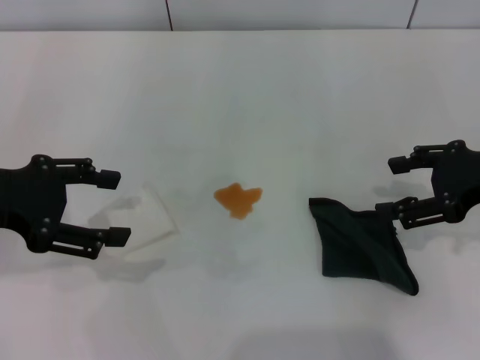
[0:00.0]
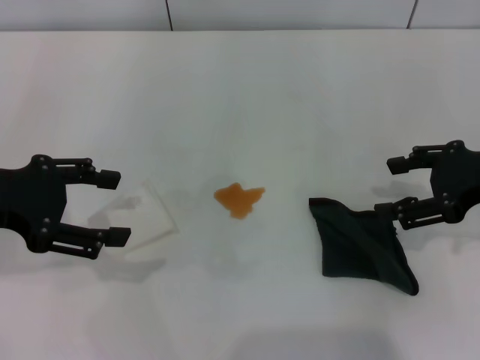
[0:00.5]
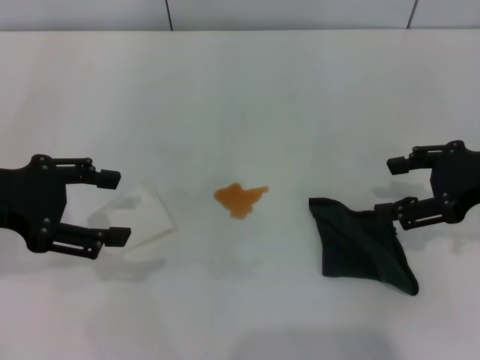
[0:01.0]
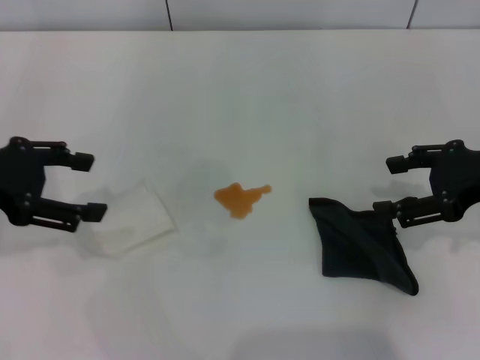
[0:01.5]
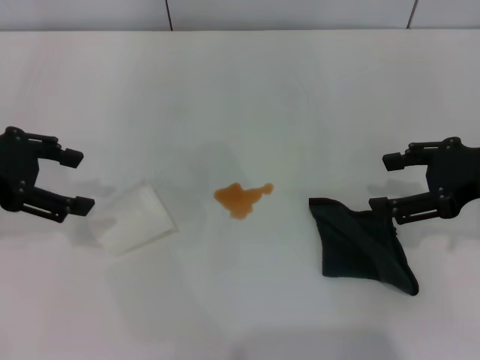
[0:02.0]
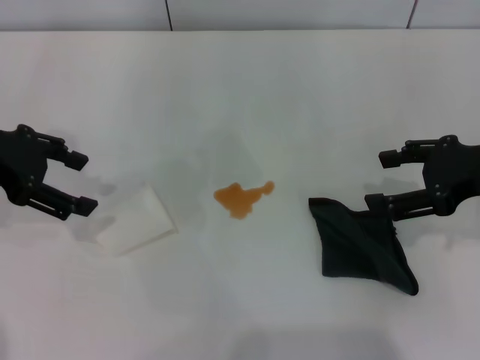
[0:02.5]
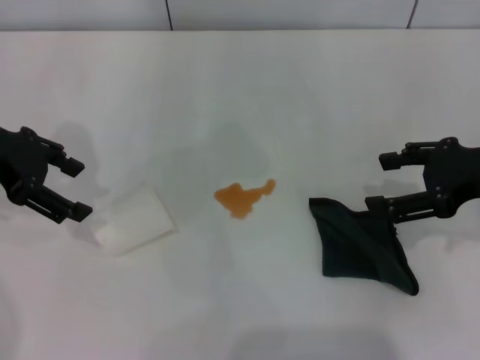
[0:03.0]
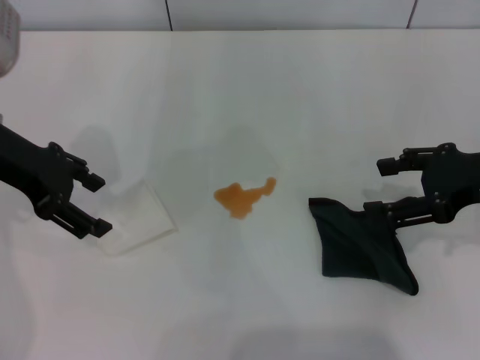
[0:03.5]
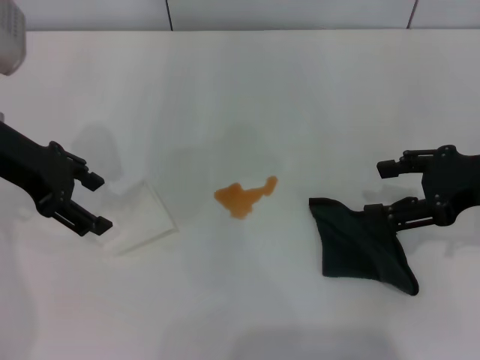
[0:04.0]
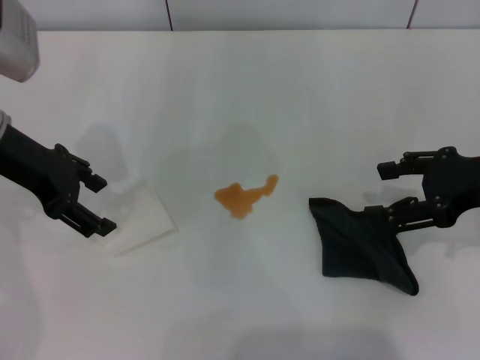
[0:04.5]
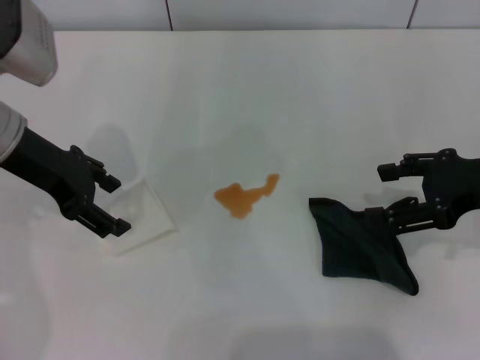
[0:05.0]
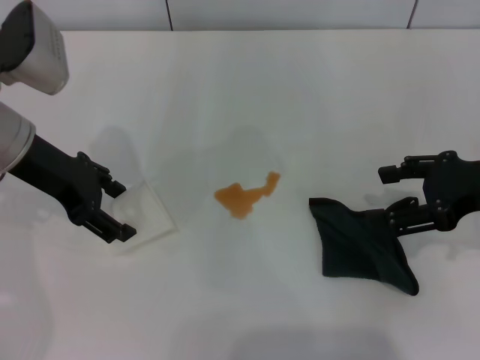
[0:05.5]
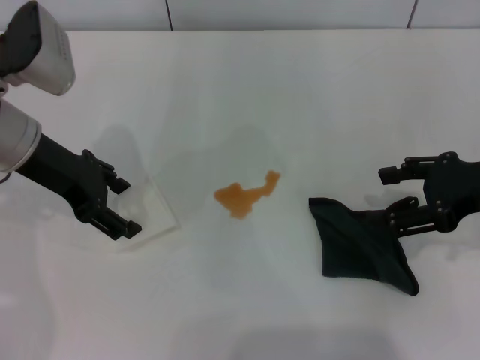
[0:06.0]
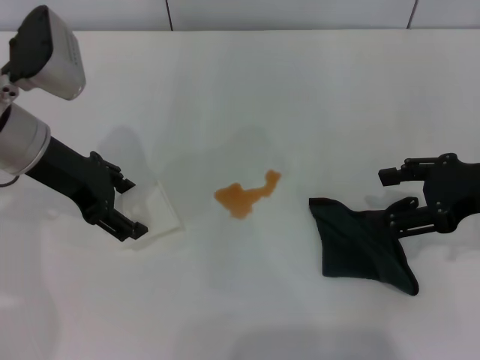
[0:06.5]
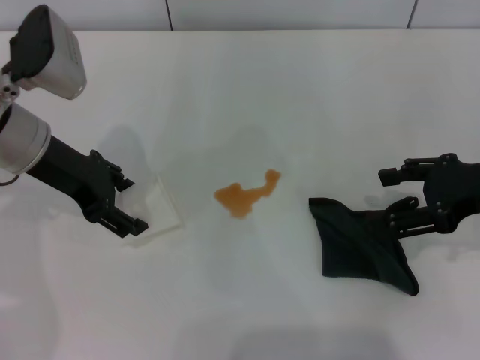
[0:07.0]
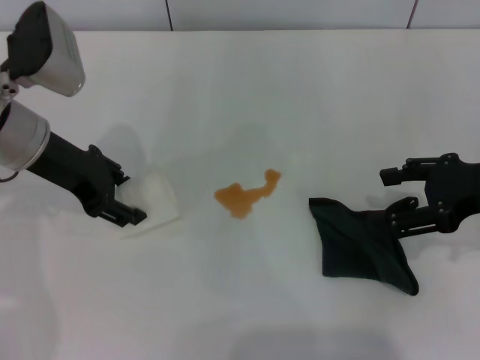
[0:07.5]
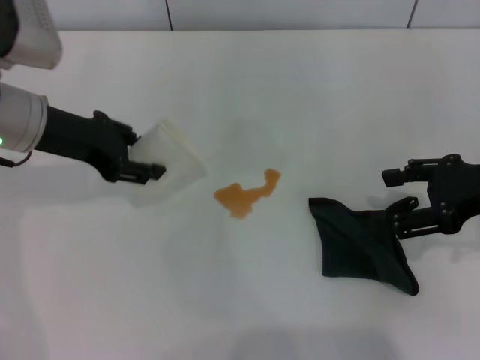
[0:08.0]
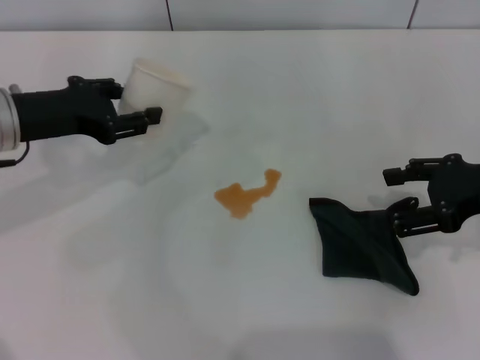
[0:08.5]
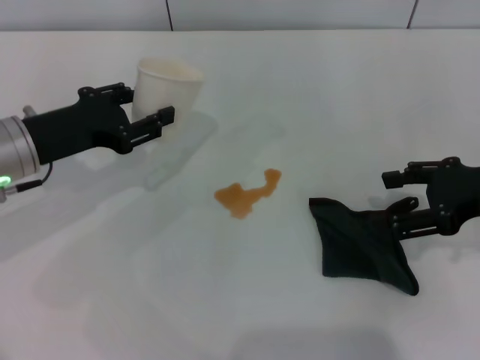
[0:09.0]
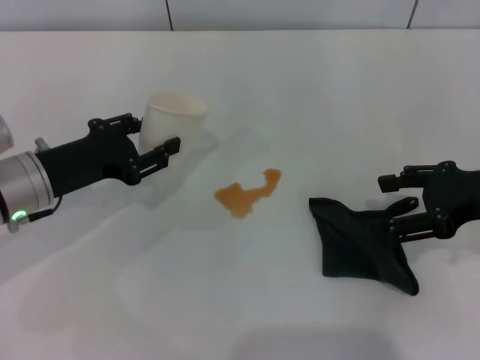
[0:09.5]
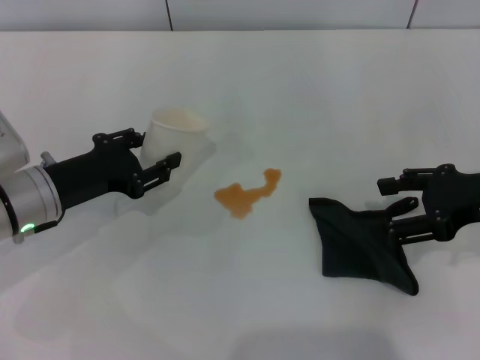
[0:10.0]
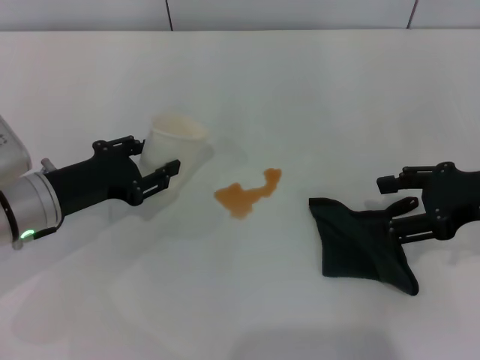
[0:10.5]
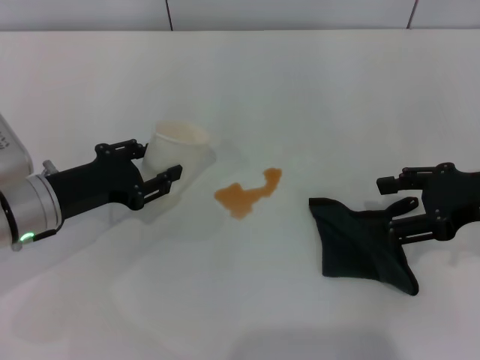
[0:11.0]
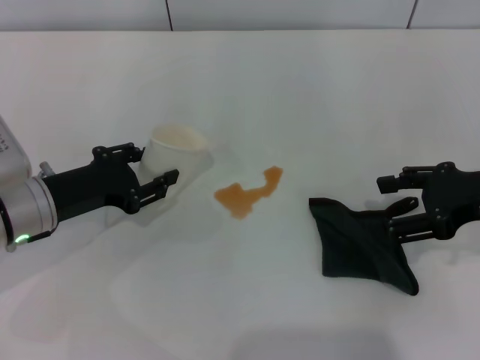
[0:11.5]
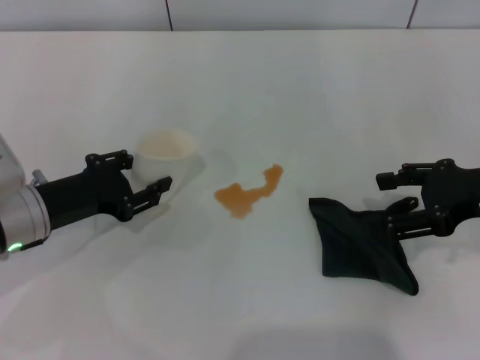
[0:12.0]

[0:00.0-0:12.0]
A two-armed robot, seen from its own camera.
Step, 0:00.0 to 0:07.0: Grasp the paper cup with the left gripper.
0:00.0 to 0:02.0: The left gripper moves some 5 cm.
0:02.0 to 0:04.0: The left gripper is displaced to the right by about 5 cm.
0:04.0 to 0:06.0: The grippers make only small movements.
0:06.0 to 0:08.0: The left gripper closes.
0:08.0 to 0:10.0: The left gripper heads downward and backward, covering some 10 cm.
0:10.0 to 0:12.0: The grippers move only a little.

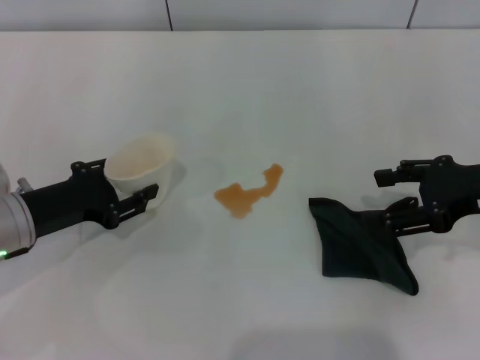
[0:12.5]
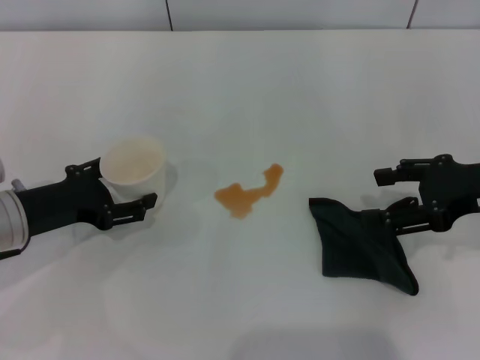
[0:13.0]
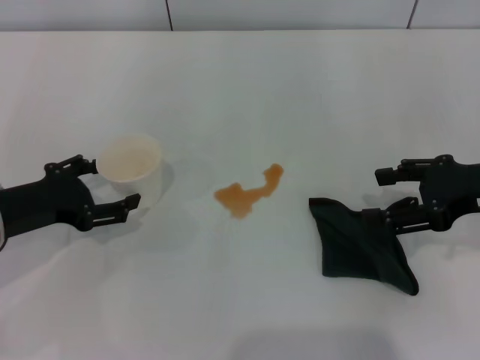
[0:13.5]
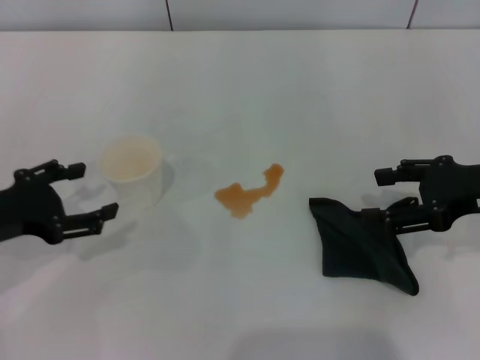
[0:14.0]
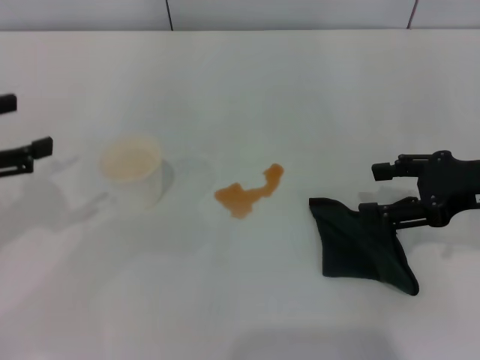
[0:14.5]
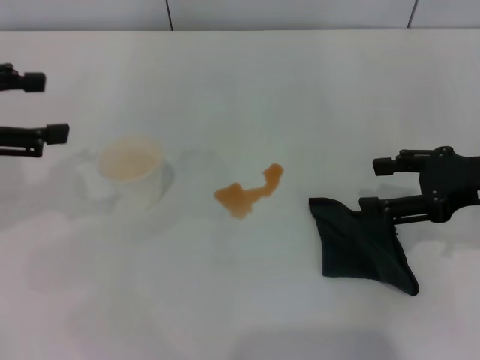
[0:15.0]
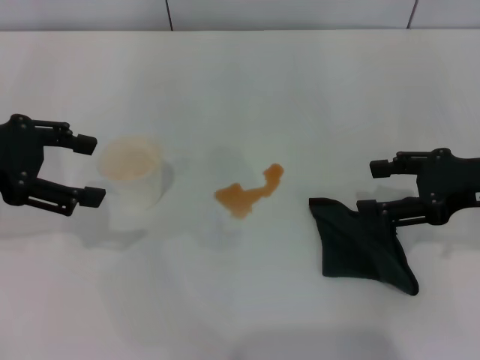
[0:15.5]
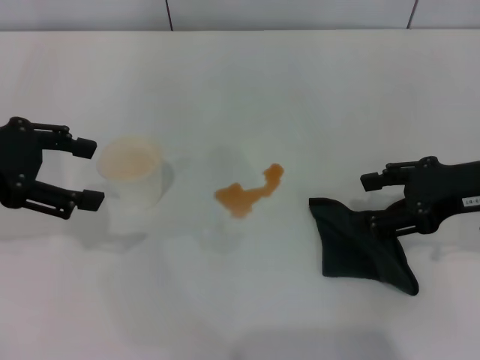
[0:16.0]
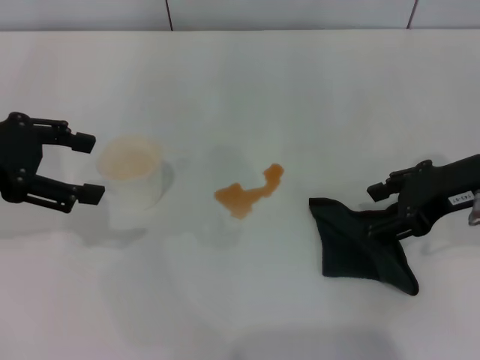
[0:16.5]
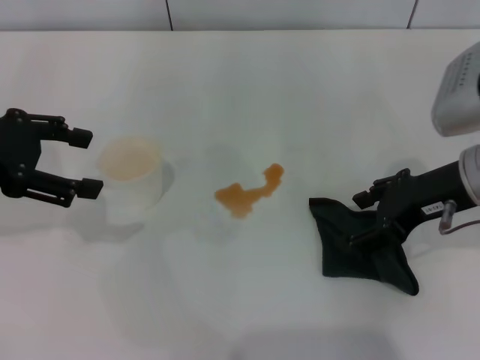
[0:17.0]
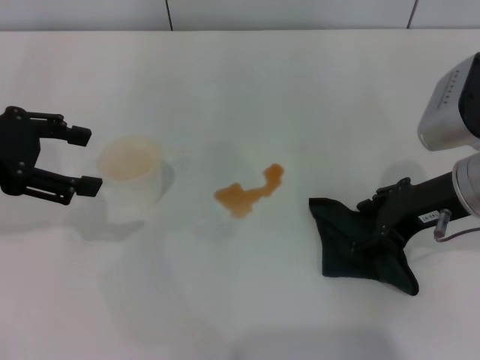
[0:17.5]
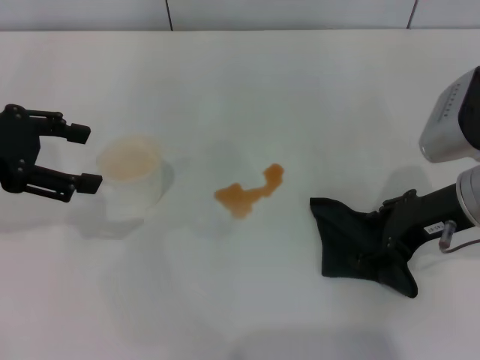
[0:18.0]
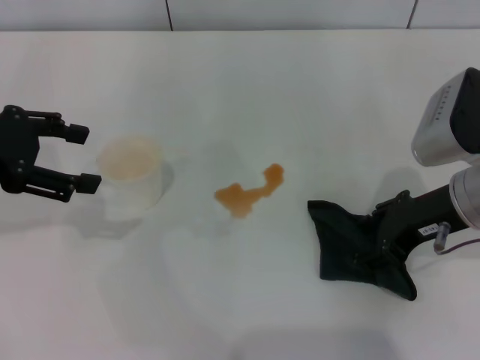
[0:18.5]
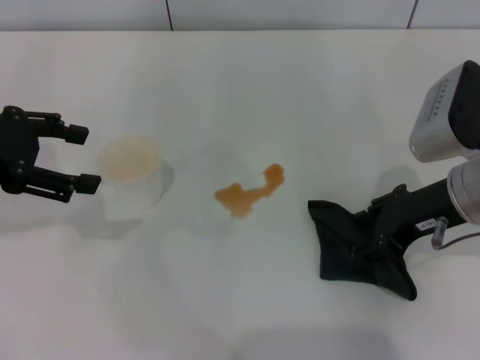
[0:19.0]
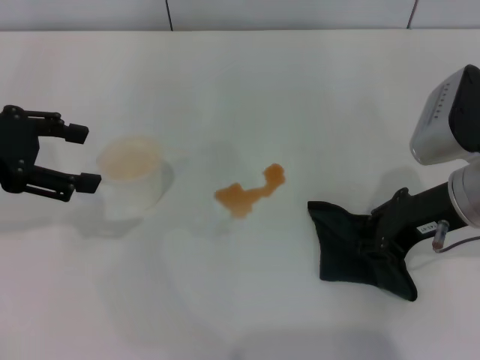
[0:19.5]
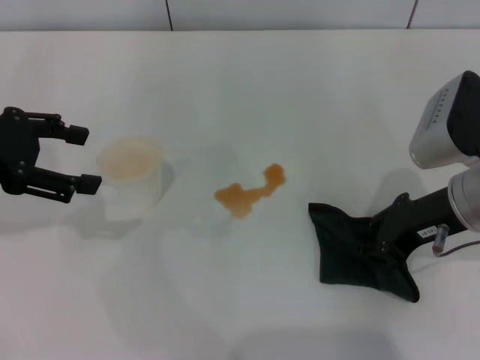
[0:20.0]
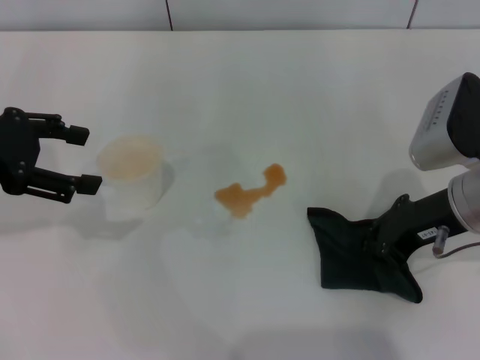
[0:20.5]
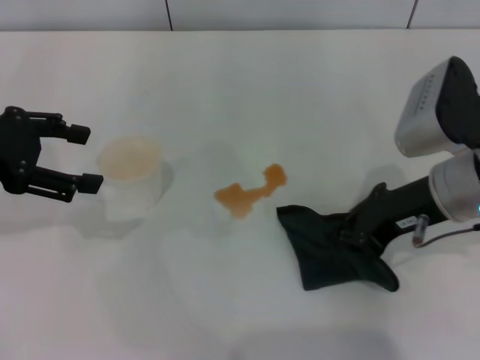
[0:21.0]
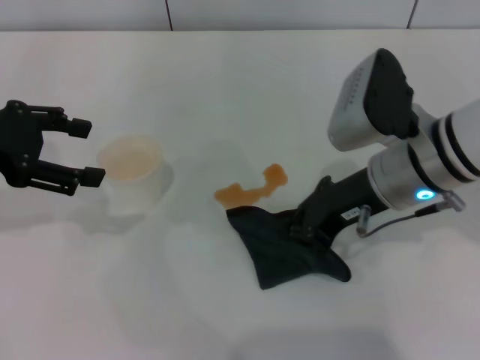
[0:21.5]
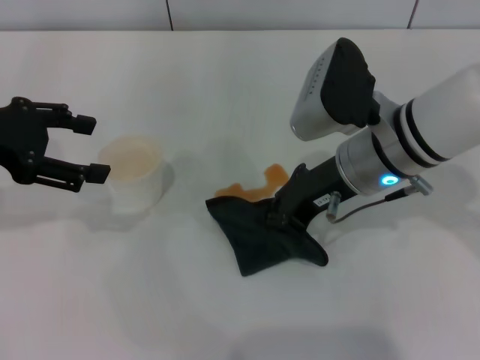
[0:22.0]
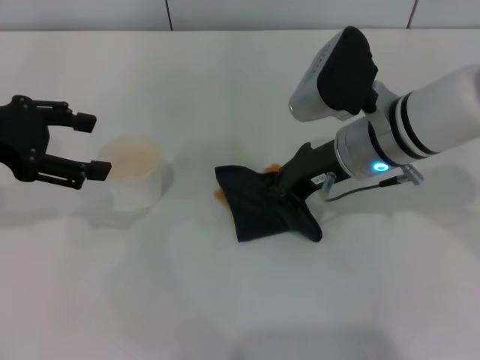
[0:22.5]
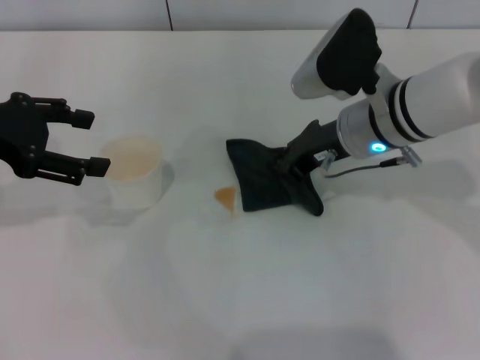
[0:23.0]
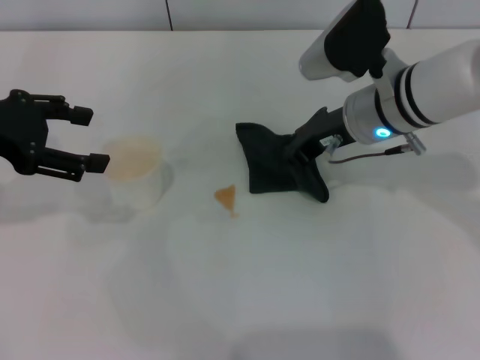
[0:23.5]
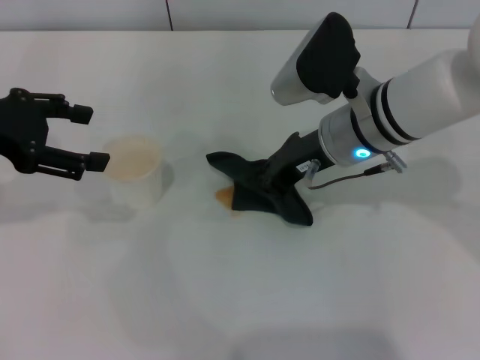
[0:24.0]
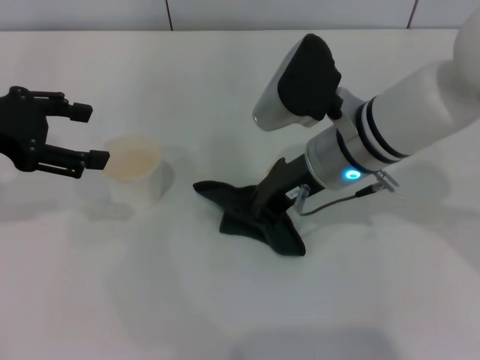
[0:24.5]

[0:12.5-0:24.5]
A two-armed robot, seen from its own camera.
Step, 0:14.5 to 0:20.5: Grasp the rag with the right gripper.
0:12.5 to 0:14.5: The left gripper is displaced upward and to the left by about 15 cm, and opens.
0:14.5 to 0:16.5: The right gripper moves some 5 cm; the left gripper is displaced forward by some 5 cm.
0:16.5 to 0:18.5: The grippers move only a little.
0:18.5 to 0:20.5: The right gripper closes.
0:20.5 to 0:22.5: The right gripper heads to the left and forward, covering about 10 cm.
0:22.5 to 0:24.5: The grippers make only small movements.

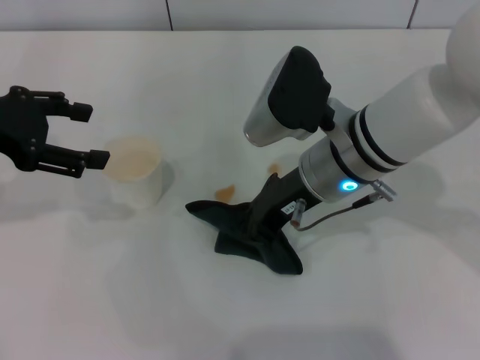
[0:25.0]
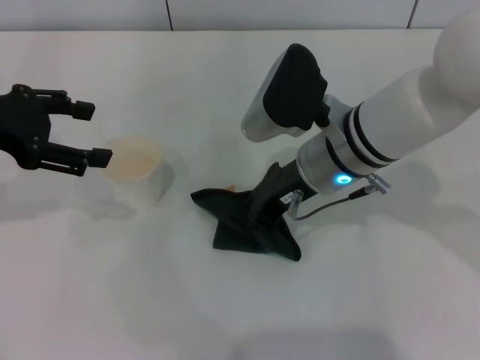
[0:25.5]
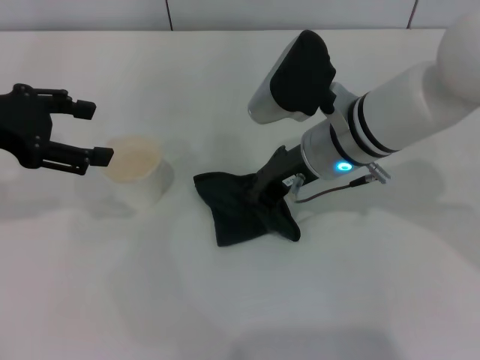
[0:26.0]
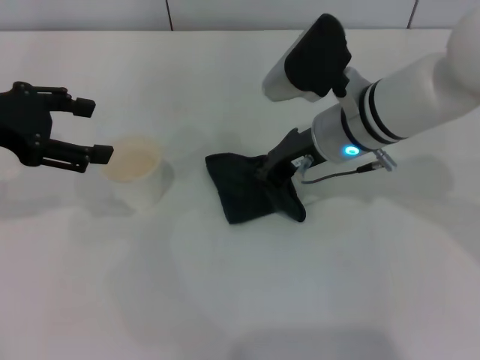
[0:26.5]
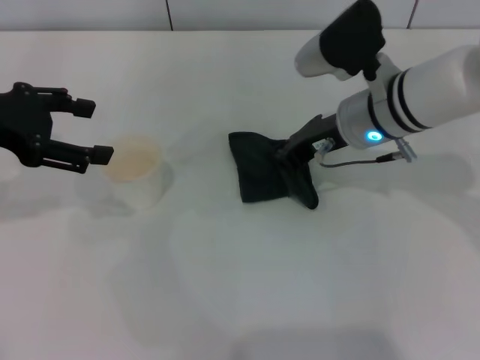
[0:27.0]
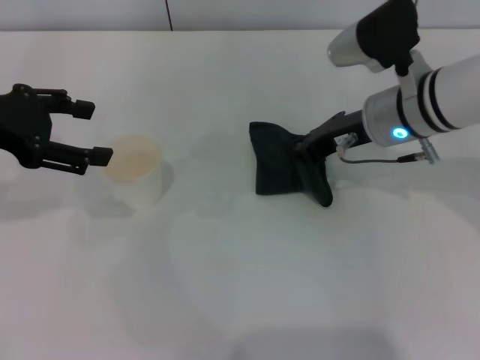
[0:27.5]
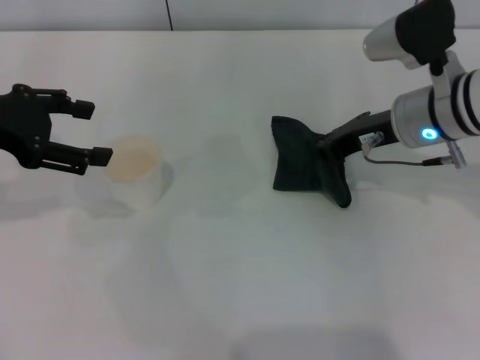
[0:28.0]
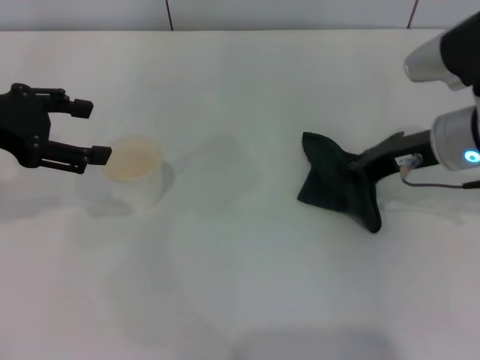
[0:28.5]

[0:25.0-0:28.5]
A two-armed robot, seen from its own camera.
0:25.0 to 0:27.0: The right gripper moves forward, approximately 5 cm.
0:27.0 to 0:28.5: The right gripper shifts approximately 10 cm to the right.
